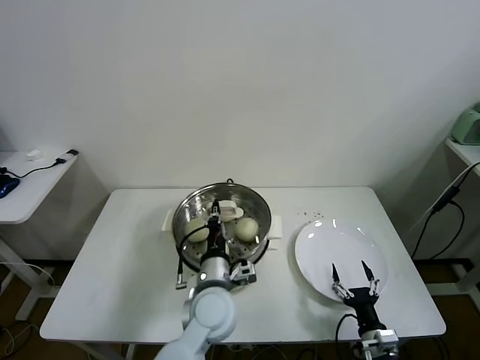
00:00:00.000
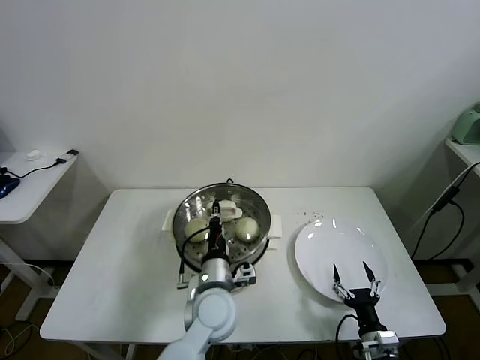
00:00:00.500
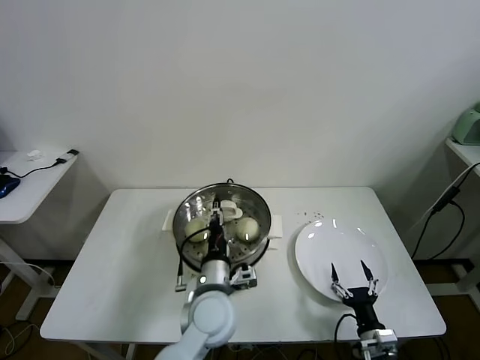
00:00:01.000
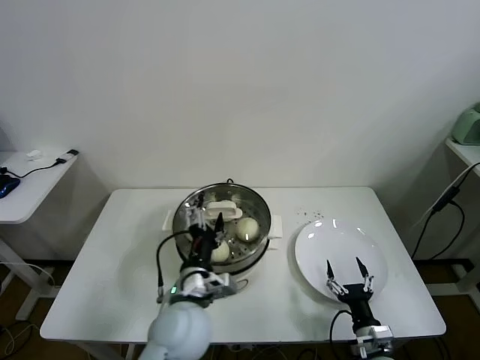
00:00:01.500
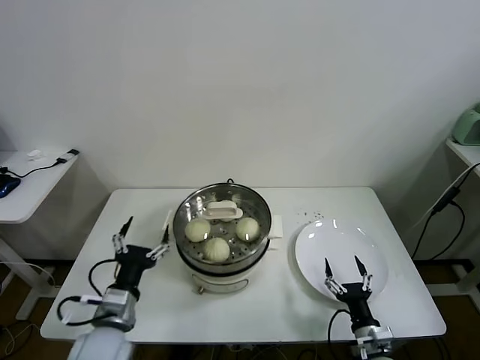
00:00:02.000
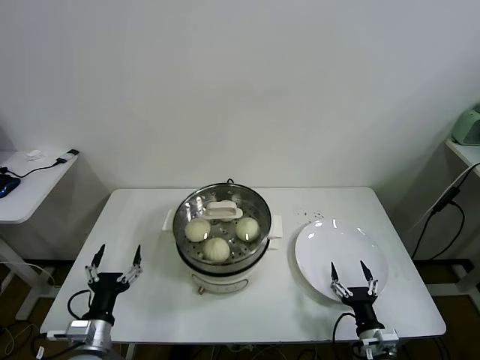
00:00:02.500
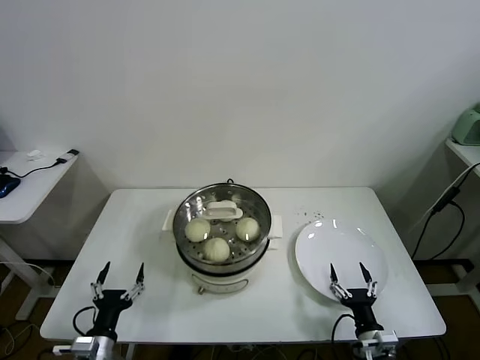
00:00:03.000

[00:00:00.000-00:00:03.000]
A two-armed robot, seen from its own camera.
Task of the whole recording: take steamed baozi put them in steamer.
00:00:00.000 to 00:00:01.500: The left gripper moves about 5 cm, and opens.
00:00:01.500 to 00:00:03.000: The left gripper moves to the left and downward, some 25 cm.
